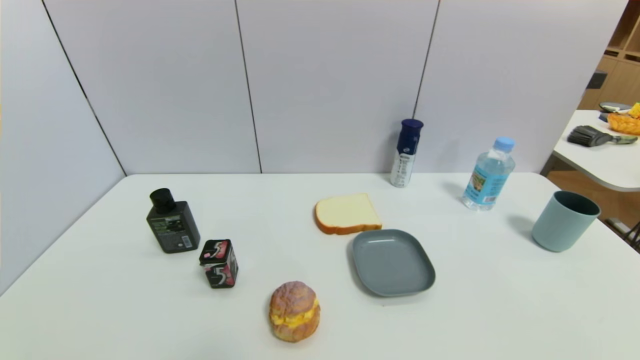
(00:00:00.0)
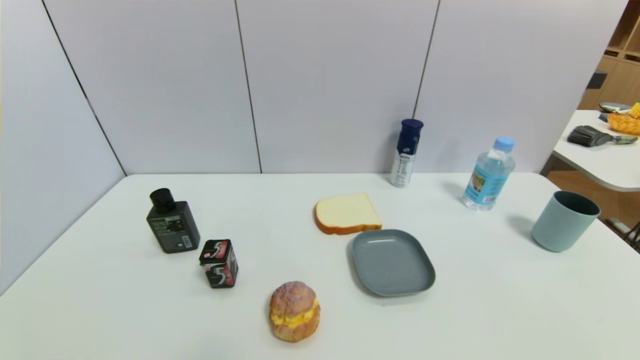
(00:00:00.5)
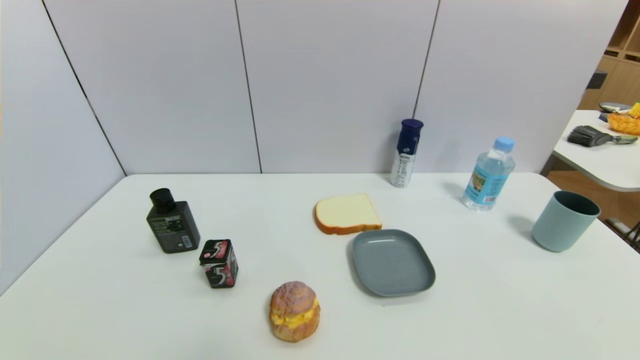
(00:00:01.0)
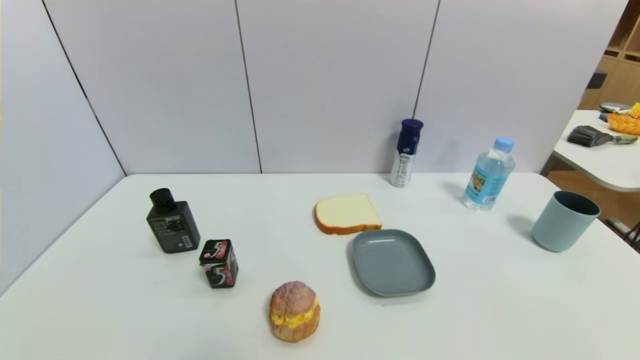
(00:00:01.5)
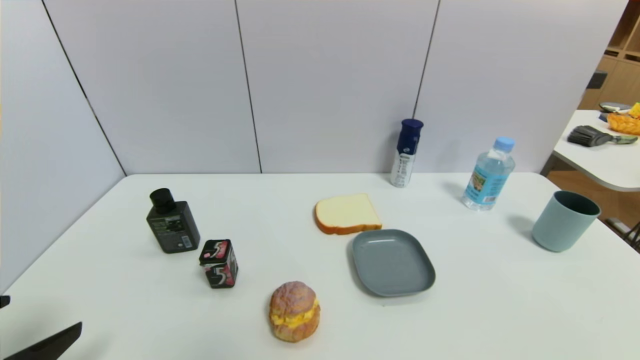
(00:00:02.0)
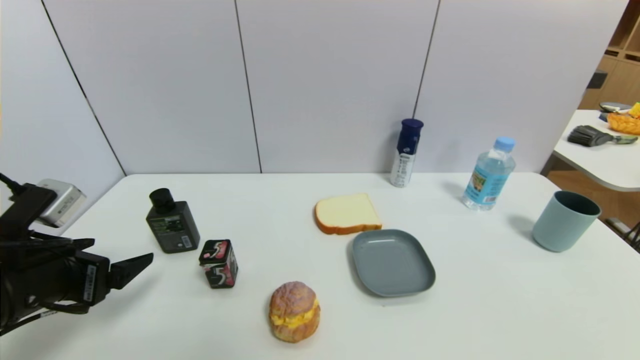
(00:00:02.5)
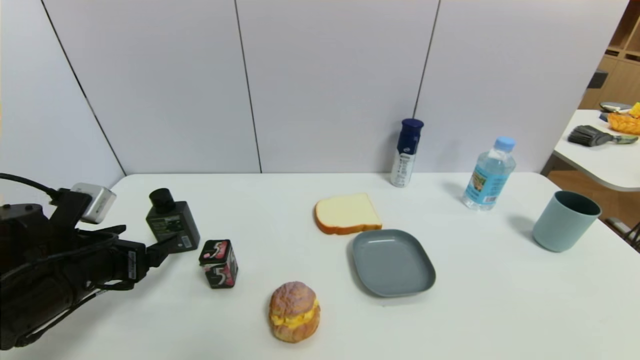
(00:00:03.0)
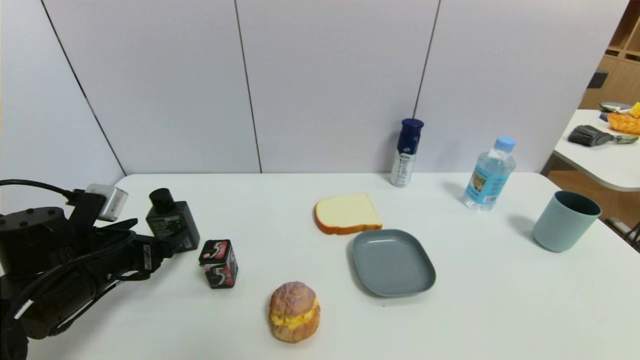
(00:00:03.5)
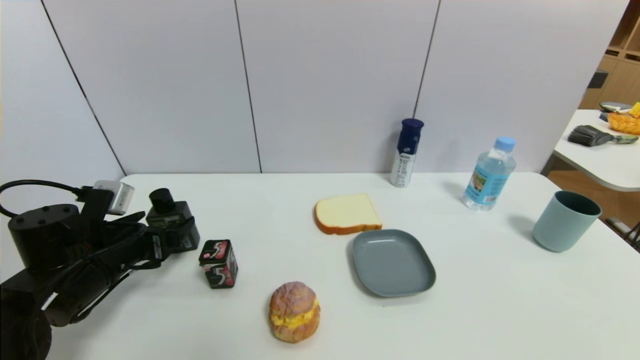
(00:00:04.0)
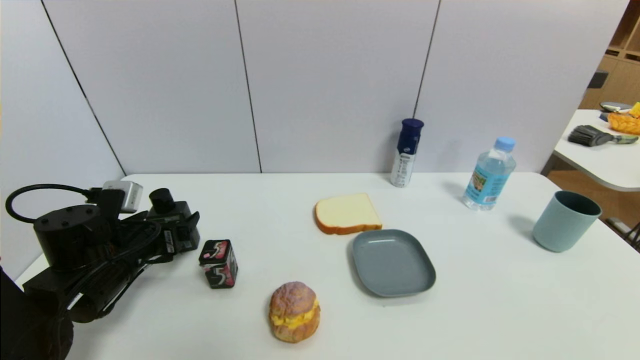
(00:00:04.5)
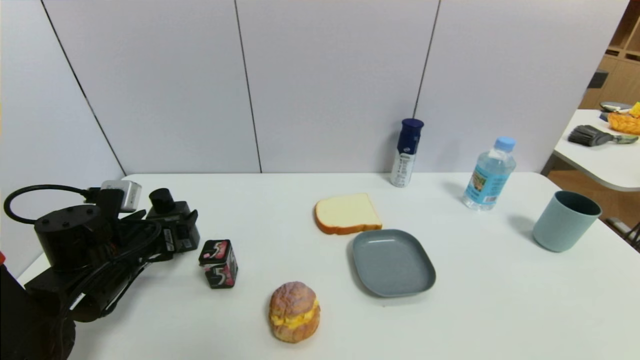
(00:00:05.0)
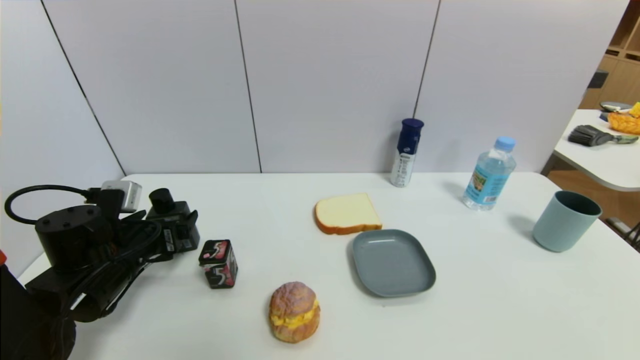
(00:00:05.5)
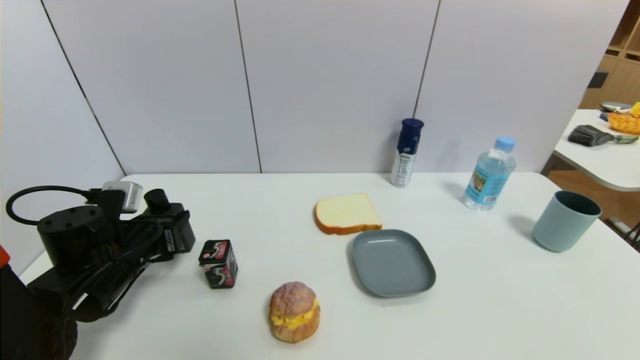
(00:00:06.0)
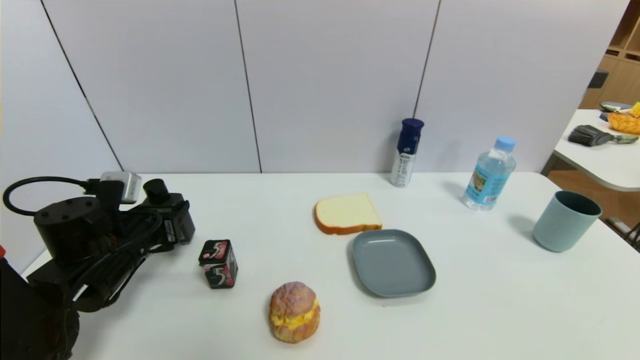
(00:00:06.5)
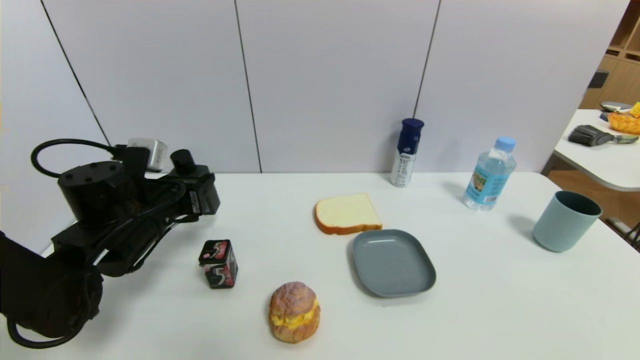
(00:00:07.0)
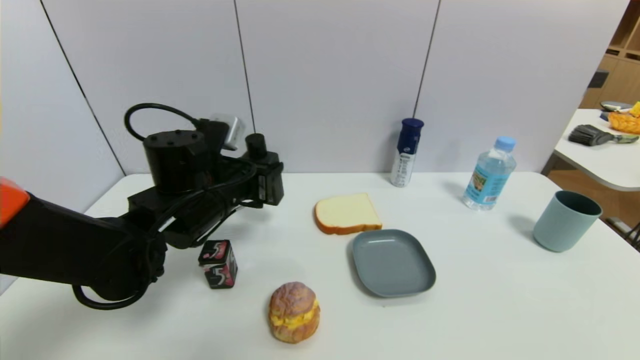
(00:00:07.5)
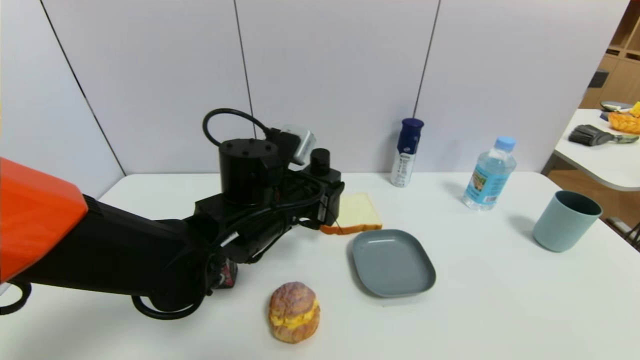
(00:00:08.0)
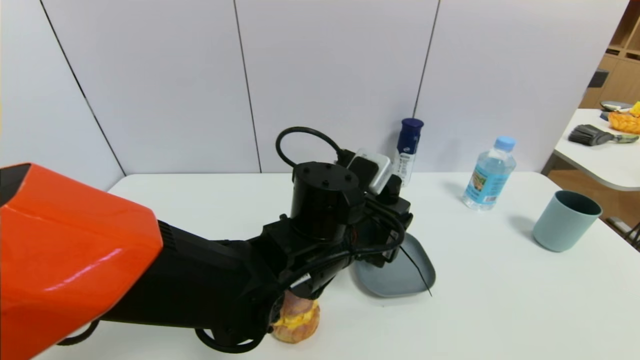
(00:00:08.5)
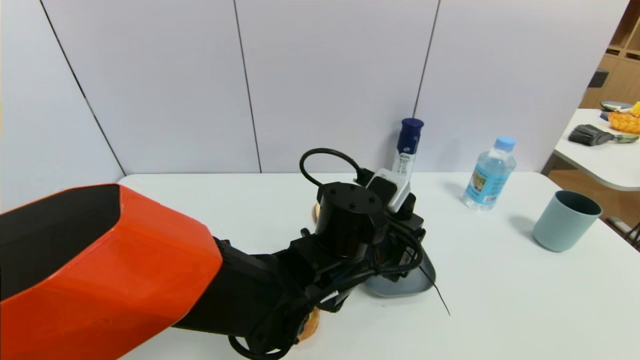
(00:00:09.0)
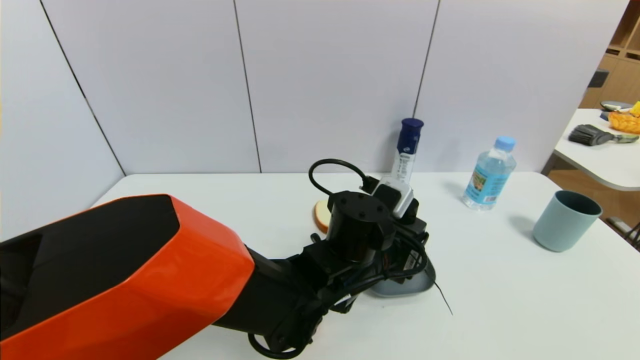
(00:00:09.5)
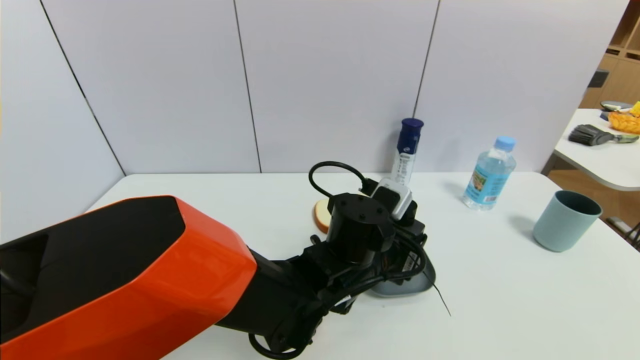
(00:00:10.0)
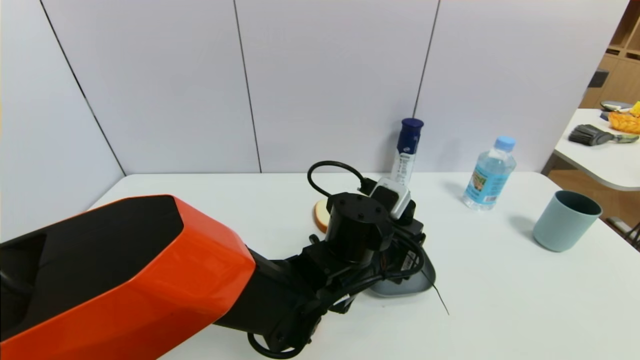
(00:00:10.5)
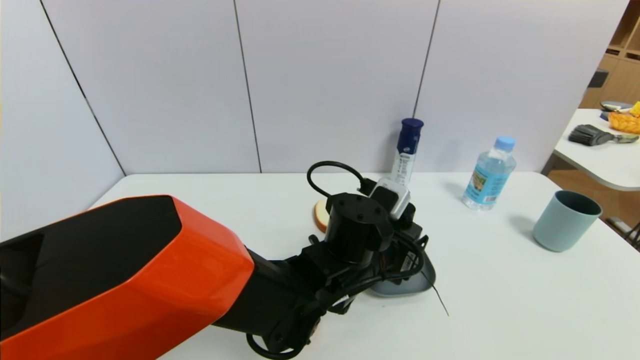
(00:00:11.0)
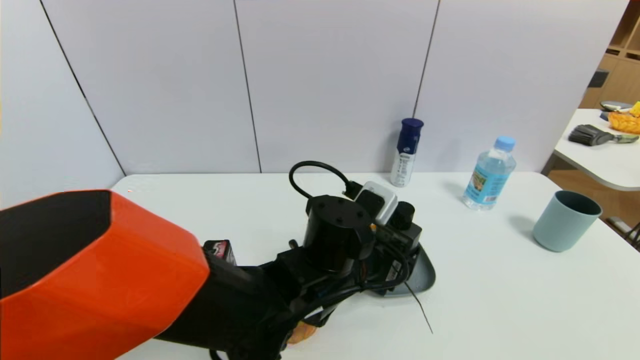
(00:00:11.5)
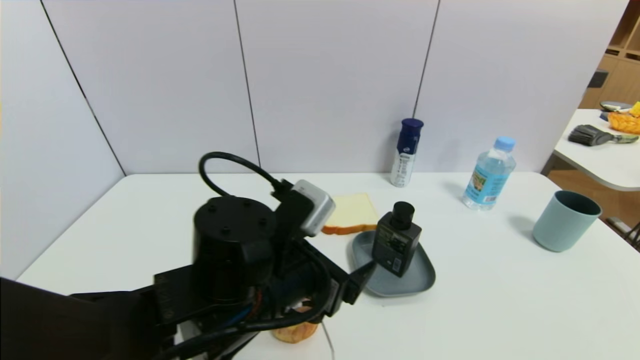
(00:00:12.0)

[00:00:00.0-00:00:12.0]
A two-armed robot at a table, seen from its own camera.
Task of the whole recording: use a gripper to pick the target object and place on the dish.
Step, 00:00:00.0 to 00:00:06.0: Grasp the hard facial cleanser with the left gripper.
Step, 00:00:06.5 to 00:00:11.5: Place the hard facial cleanser on the dish with the left gripper.
00:00:00.0 to 00:00:02.0: The left gripper moves upward and forward, roughly 15 cm.
00:00:02.0 to 00:00:04.0: The left gripper goes some 20 cm forward and downward.
00:00:04.0 to 00:00:06.0: The left gripper closes.
00:00:06.0 to 00:00:08.0: The left gripper moves to the right, approximately 20 cm.
00:00:08.0 to 00:00:10.0: The left gripper heads to the right and downward, covering about 10 cm.
00:00:10.0 to 00:00:12.0: The left gripper shifts some 15 cm to the left and backward, and opens its fingers.

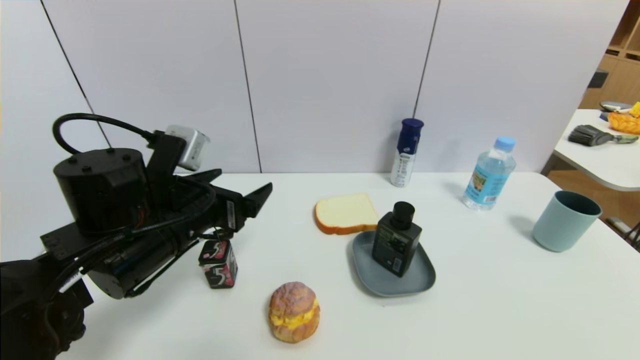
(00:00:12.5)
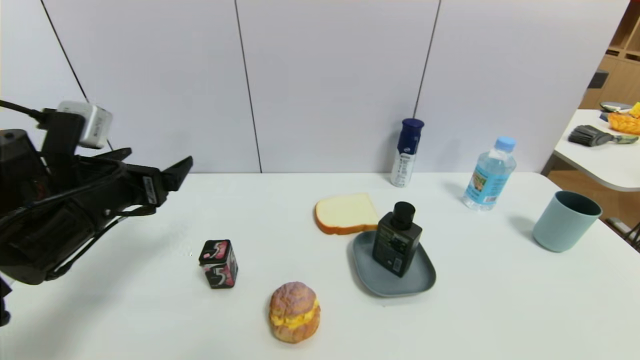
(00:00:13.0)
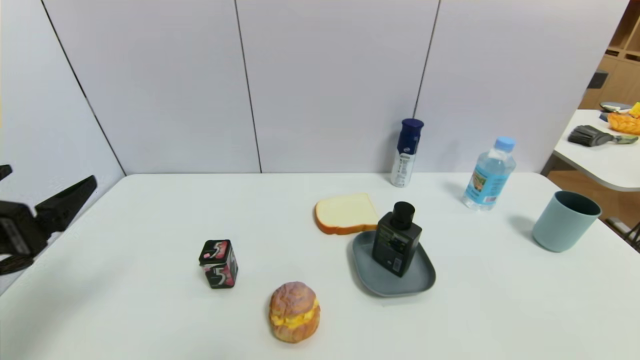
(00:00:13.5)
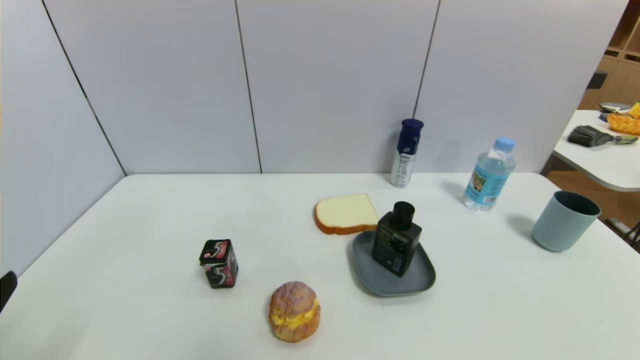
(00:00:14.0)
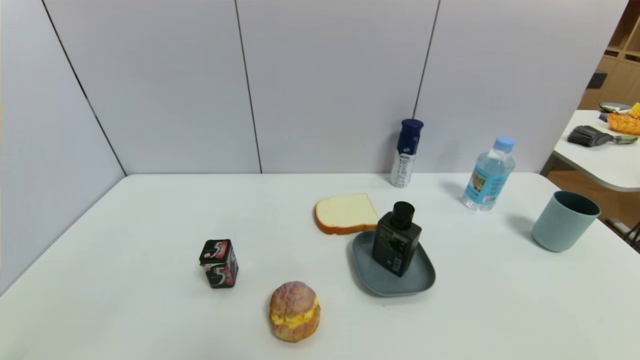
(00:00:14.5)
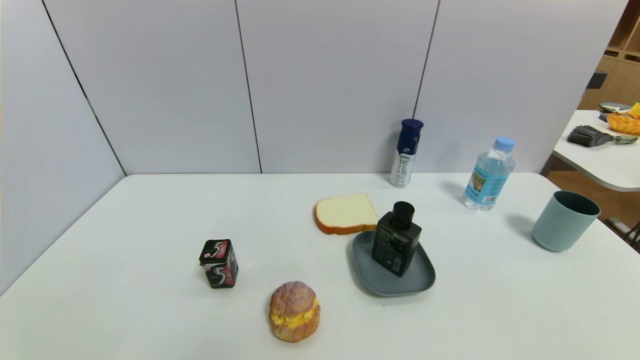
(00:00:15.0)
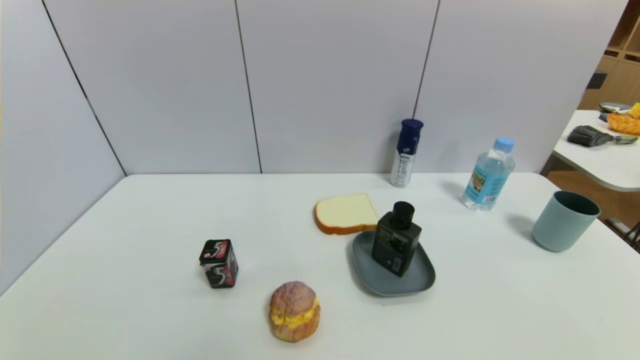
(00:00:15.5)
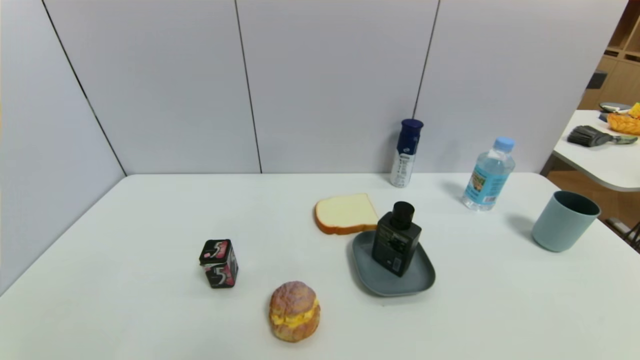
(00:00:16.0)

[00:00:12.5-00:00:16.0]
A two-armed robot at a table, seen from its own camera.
Task of the whole recording: use a gripper to pick the target object and place on the dish.
00:00:12.5 to 00:00:14.5: The left gripper heads backward and to the left, covering approximately 30 cm.

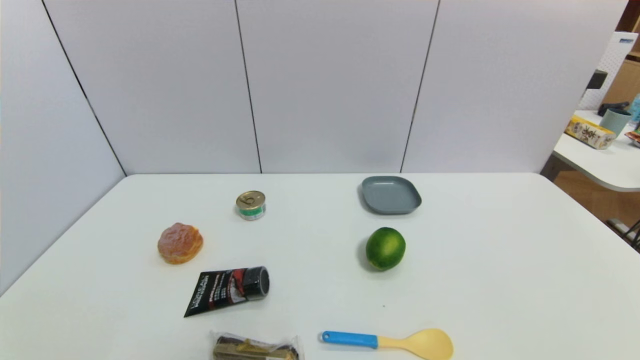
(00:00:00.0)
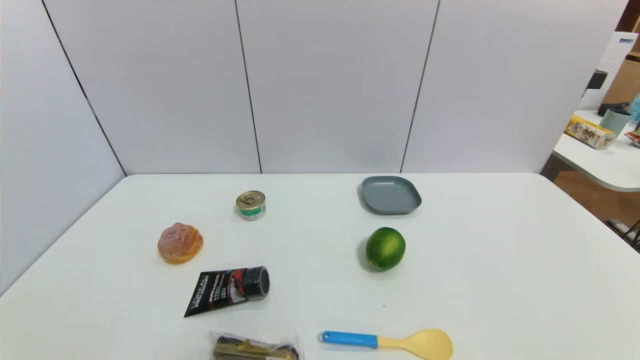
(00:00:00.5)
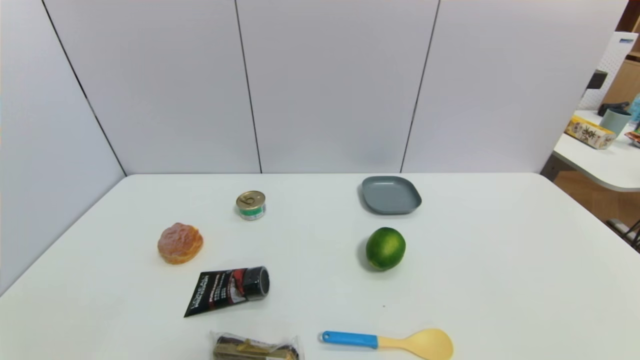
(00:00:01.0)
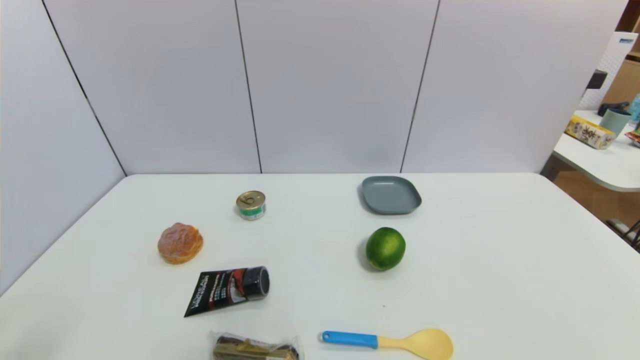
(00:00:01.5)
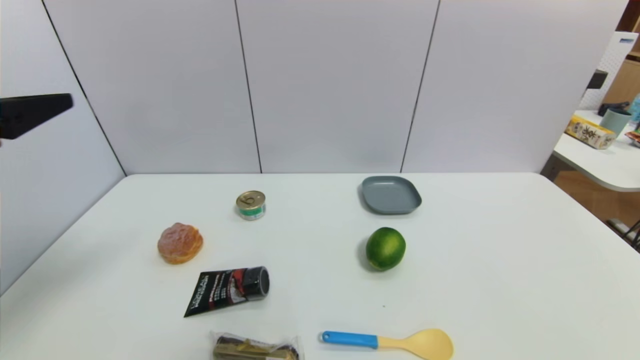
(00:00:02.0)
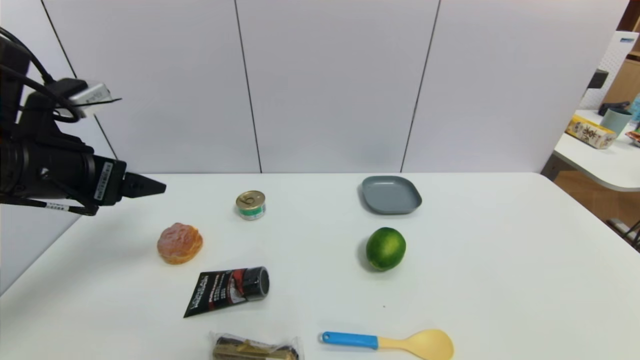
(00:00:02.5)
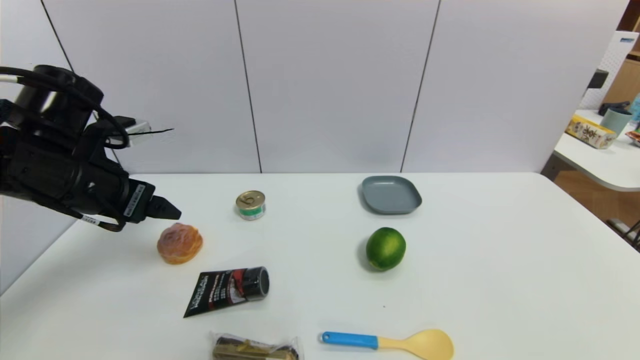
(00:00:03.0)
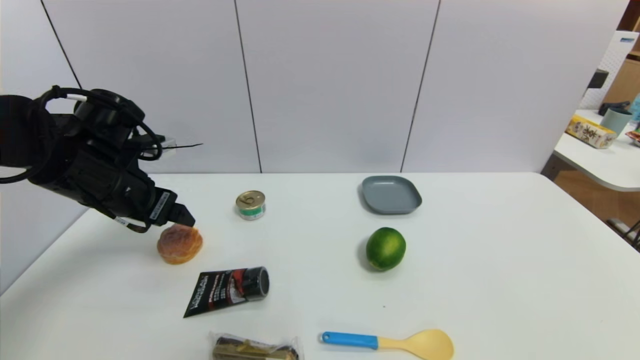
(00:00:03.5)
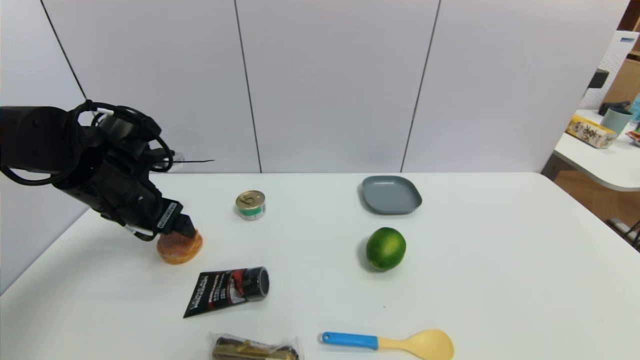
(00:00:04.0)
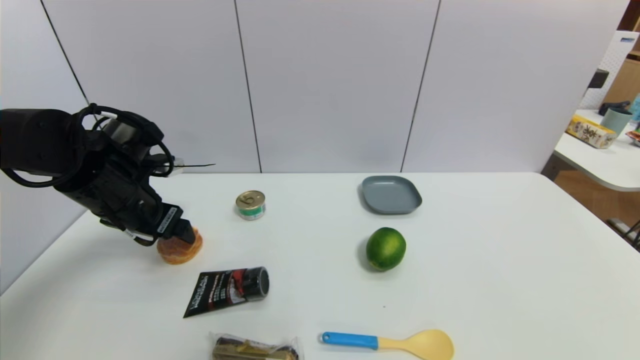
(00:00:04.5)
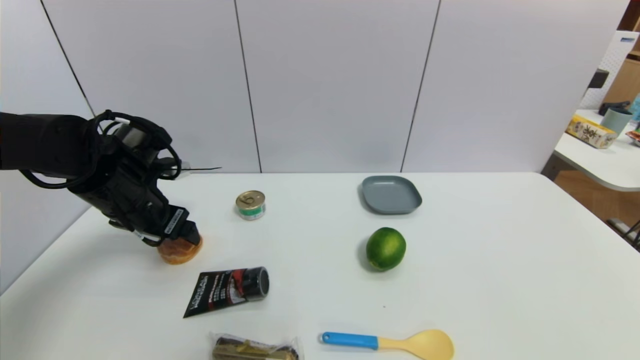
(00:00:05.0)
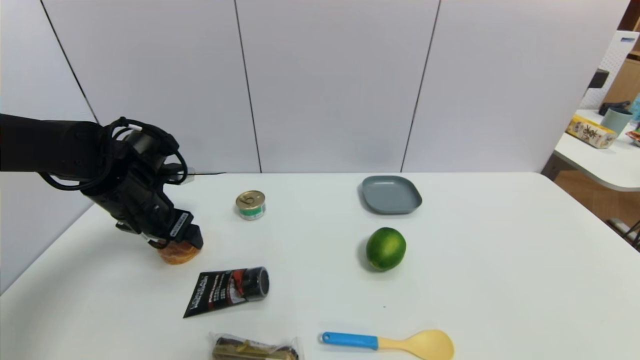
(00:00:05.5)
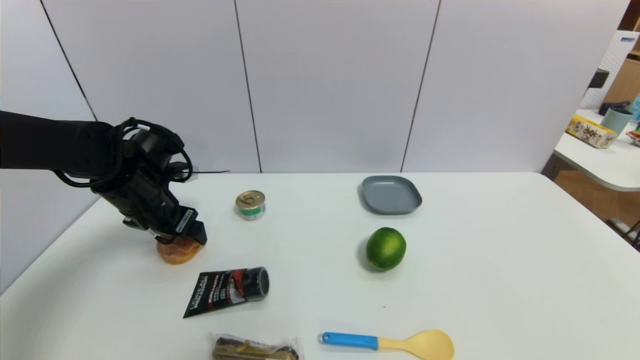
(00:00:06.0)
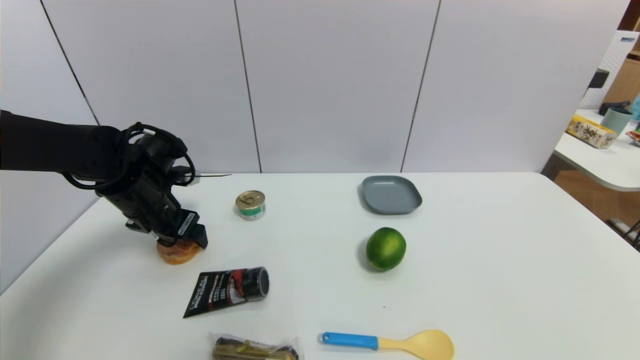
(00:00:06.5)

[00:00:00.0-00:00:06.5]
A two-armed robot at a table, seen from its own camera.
Task of the whole recording: use a gripper to pick the target object and place on the dish.
00:00:00.0 to 00:00:02.0: The left gripper goes roughly 30 cm upward and forward.
00:00:02.0 to 00:00:04.5: The left gripper heads forward and downward, covering approximately 20 cm.
00:00:04.5 to 00:00:06.5: The left gripper moves some 5 cm.
